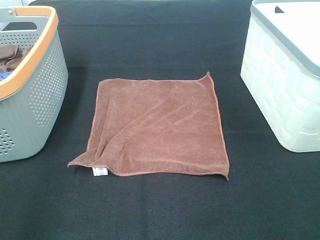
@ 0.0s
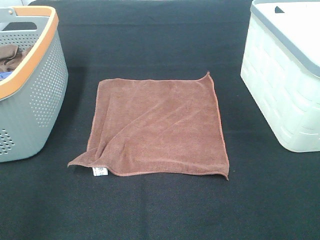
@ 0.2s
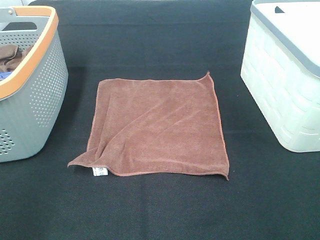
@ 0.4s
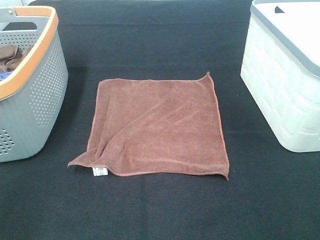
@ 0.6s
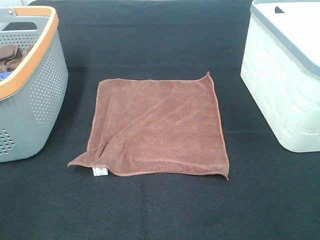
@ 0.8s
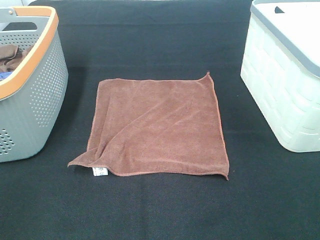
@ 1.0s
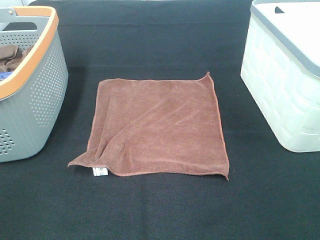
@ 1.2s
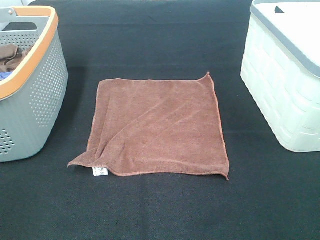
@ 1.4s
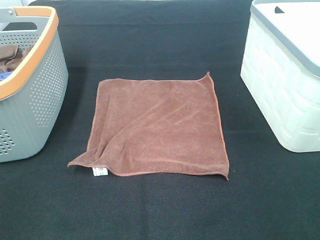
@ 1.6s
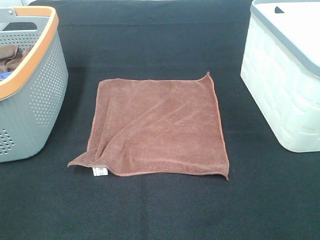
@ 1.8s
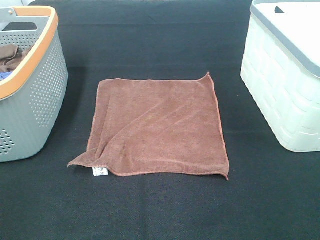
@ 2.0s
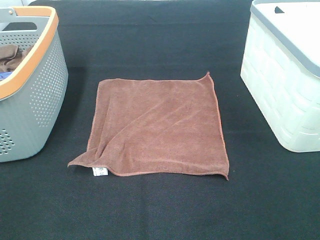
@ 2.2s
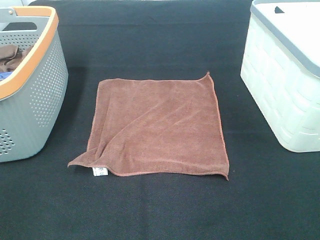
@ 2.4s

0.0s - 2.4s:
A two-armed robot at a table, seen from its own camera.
Task of the whole recording: Remove the towel and place it.
1.2s - 2.4s: Both grippers stay put.

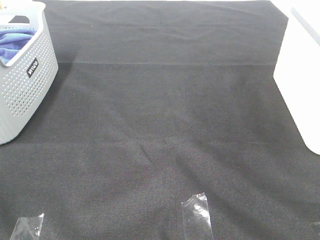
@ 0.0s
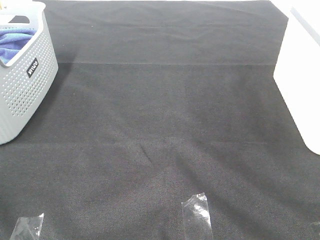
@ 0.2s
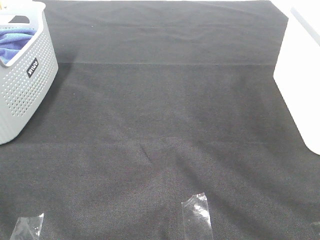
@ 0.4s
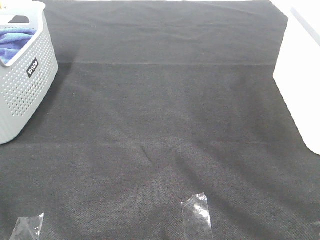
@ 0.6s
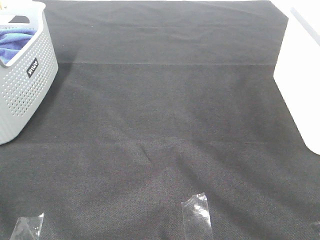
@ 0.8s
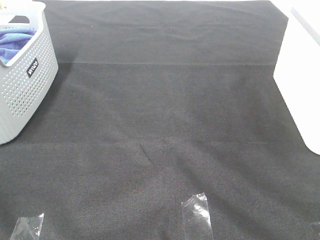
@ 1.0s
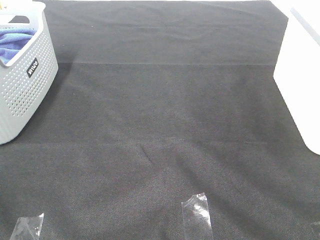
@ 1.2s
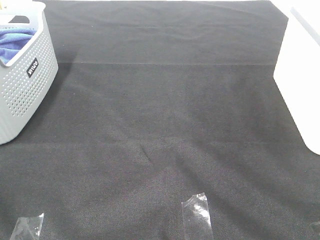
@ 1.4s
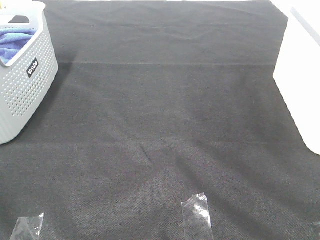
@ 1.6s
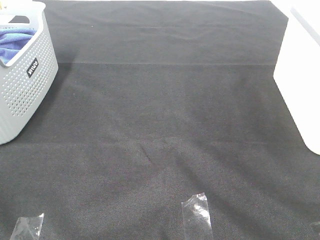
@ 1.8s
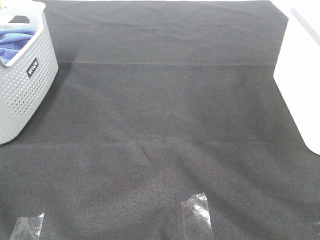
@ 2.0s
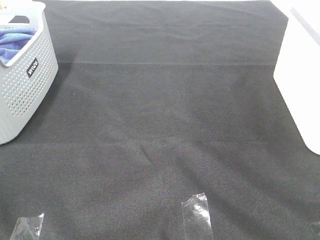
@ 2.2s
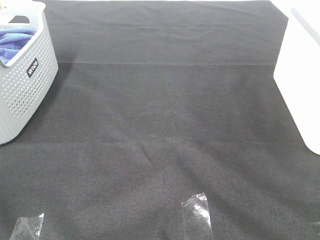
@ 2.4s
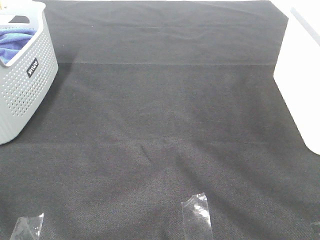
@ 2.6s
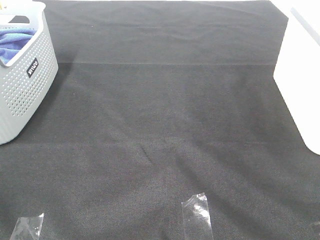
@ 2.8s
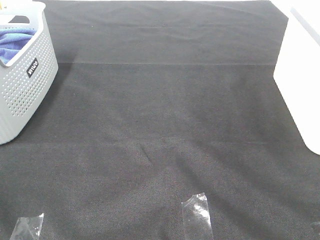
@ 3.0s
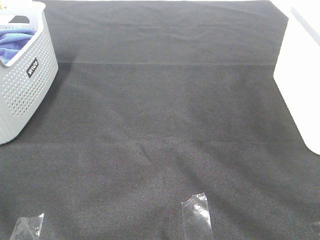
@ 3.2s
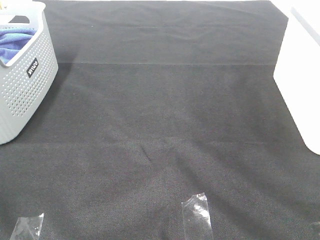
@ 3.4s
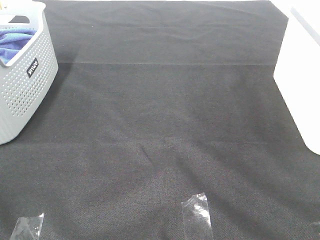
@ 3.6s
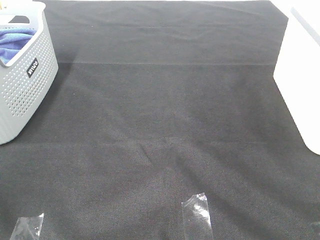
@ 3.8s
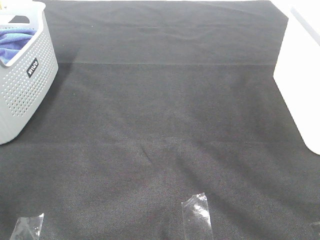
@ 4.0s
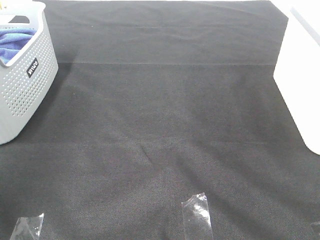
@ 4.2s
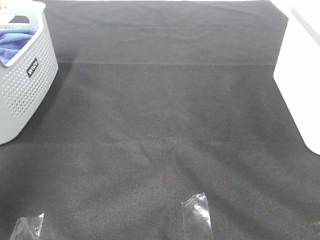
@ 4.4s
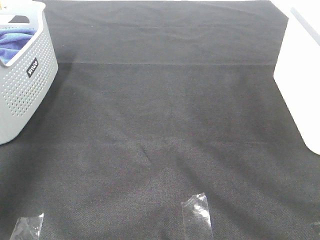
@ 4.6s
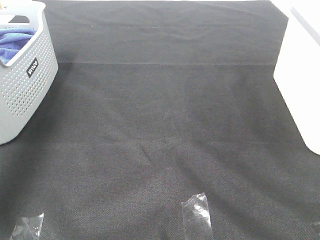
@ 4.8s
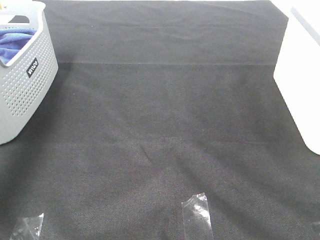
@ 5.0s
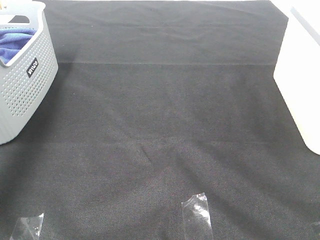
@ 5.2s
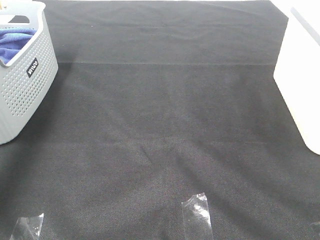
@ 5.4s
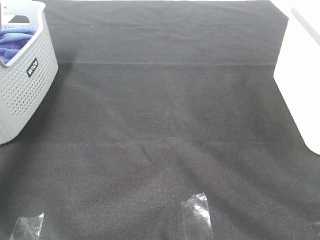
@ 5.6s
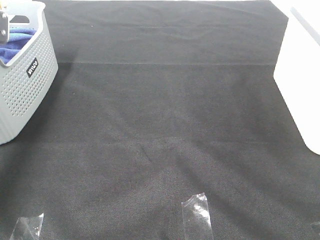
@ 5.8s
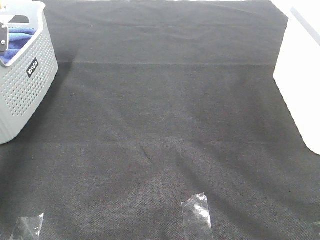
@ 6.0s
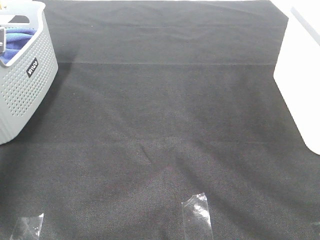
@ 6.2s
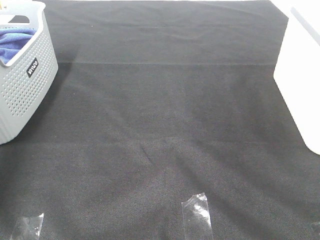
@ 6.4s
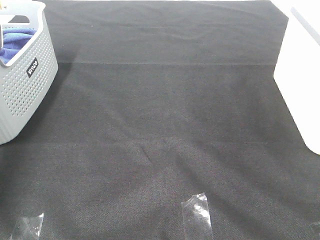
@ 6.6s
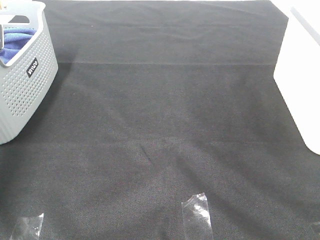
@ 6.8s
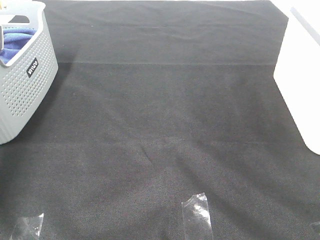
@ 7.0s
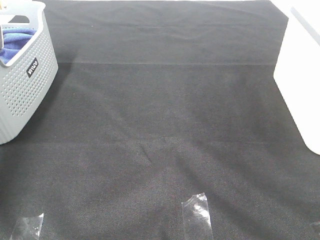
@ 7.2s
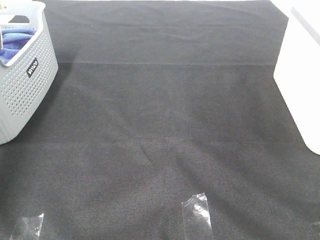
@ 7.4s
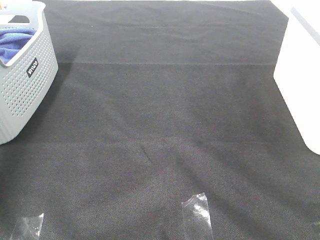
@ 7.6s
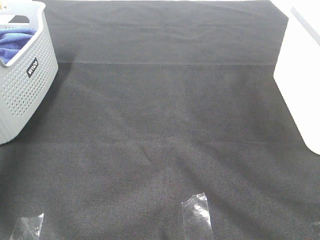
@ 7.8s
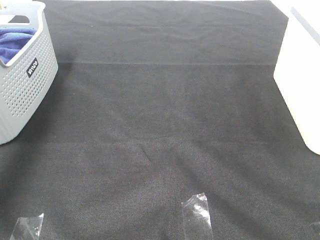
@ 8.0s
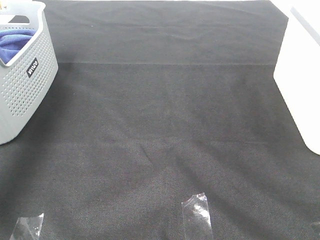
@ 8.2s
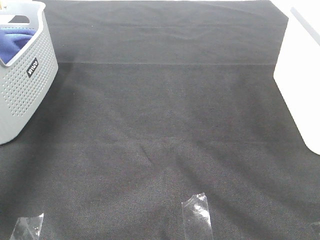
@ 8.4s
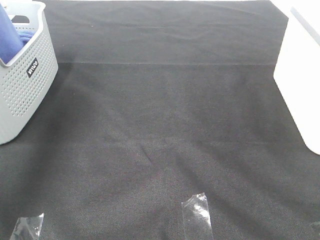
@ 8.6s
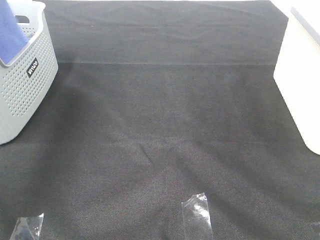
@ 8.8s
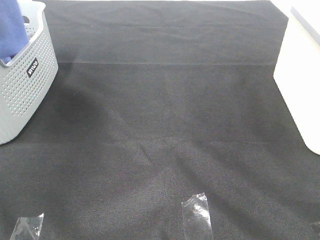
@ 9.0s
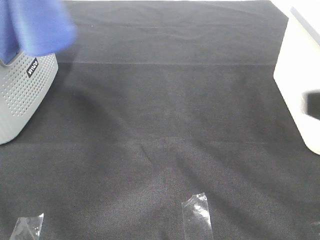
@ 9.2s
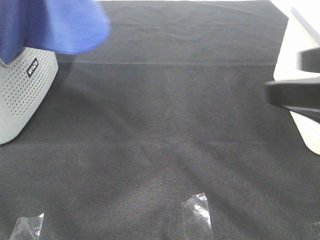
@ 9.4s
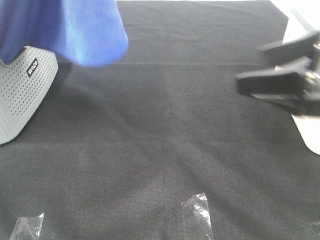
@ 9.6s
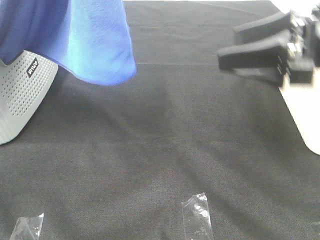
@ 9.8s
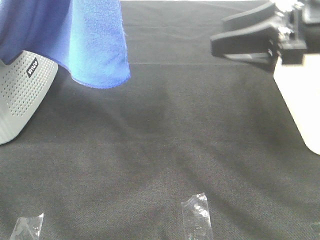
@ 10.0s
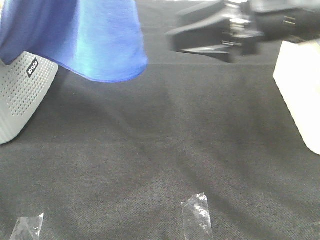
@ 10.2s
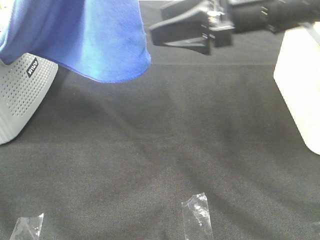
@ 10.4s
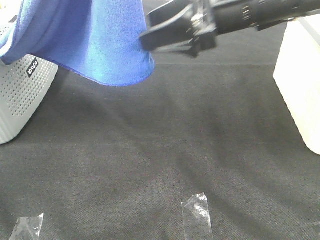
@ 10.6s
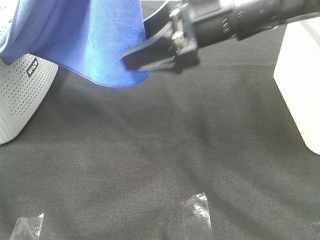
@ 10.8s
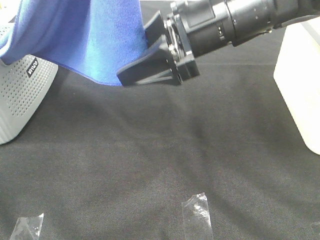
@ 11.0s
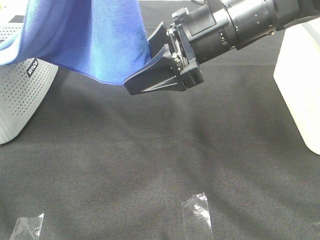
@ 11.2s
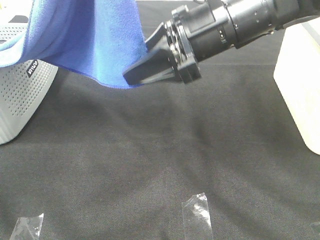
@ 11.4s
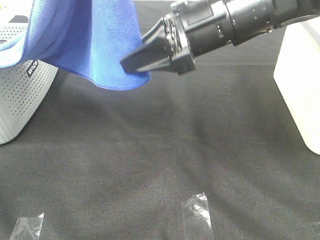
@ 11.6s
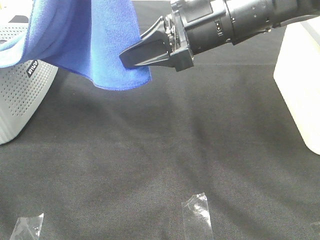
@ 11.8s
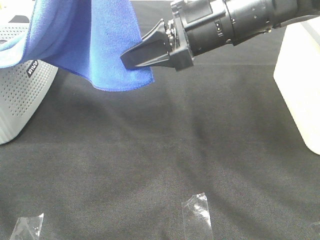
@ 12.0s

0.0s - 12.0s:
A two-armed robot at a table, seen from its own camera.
Task of the whole recording: Remove the towel and place it.
0.0s - 3.0s: Both grippers stay about where they are.
3.0s - 4.4s: The left gripper moves forward and upward, roughly 30 cm.
4.4s - 6.0s: The left gripper goes roughly 35 cm downward and forward.
7.6s - 9.0s: The left gripper is displaced upward, backward and to the right by some 40 cm.
9.0s - 10.4s: The right gripper shifts about 30 cm forward and to the left, while the left gripper heads to the right, covering some 10 cm.
10.4s - 12.0s: The right gripper ends up approximately 5 cm from where it was, and closes.

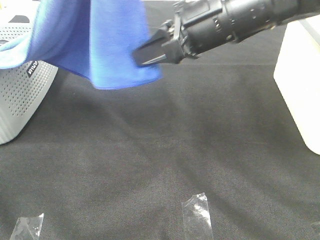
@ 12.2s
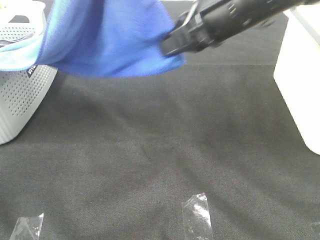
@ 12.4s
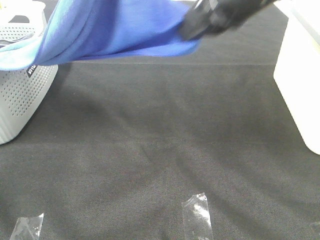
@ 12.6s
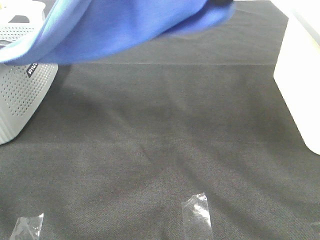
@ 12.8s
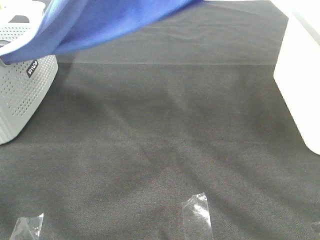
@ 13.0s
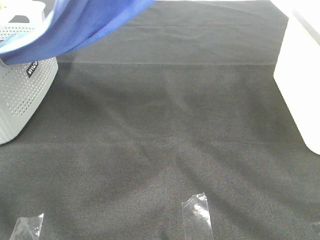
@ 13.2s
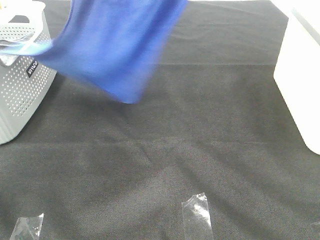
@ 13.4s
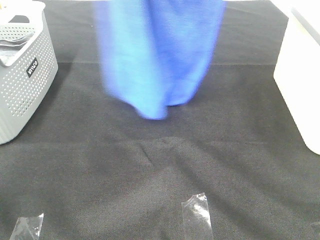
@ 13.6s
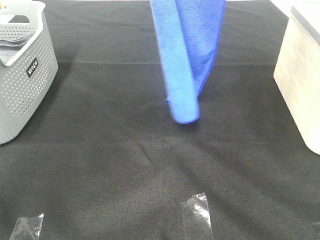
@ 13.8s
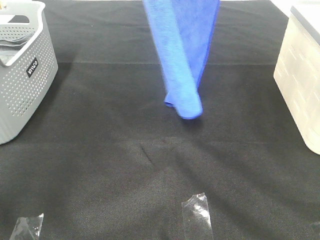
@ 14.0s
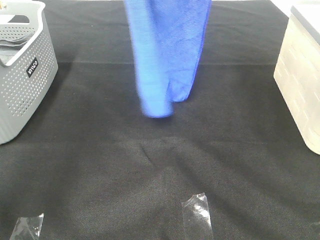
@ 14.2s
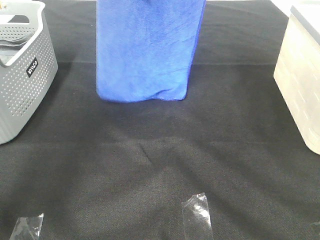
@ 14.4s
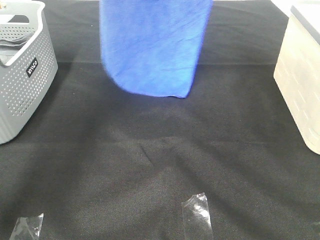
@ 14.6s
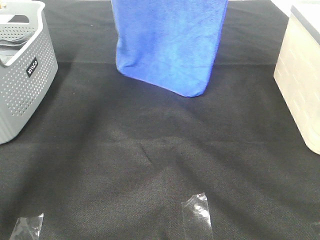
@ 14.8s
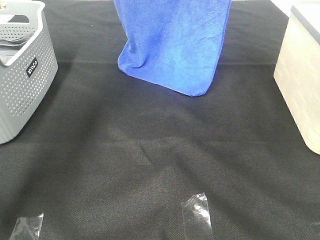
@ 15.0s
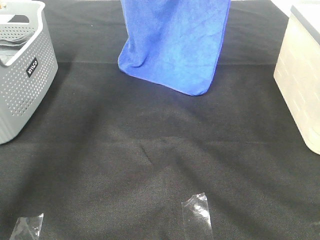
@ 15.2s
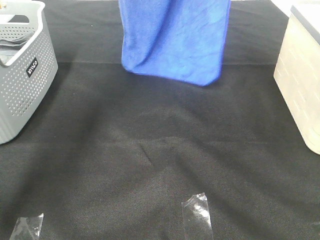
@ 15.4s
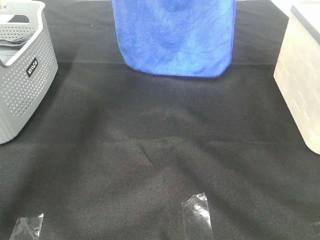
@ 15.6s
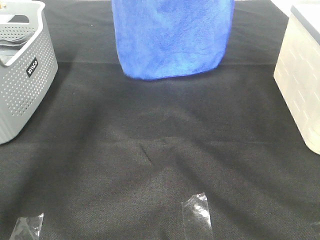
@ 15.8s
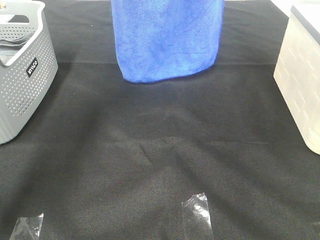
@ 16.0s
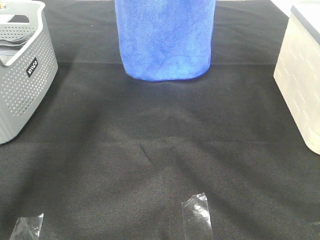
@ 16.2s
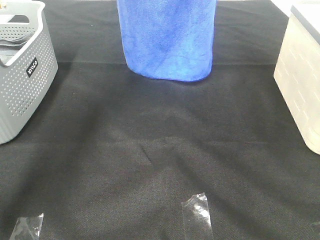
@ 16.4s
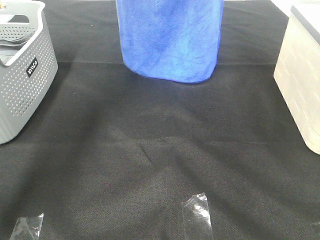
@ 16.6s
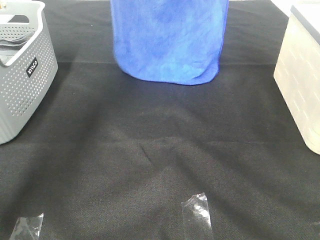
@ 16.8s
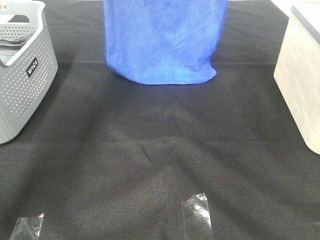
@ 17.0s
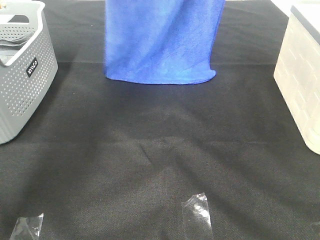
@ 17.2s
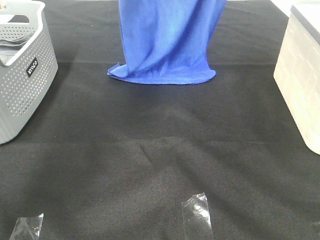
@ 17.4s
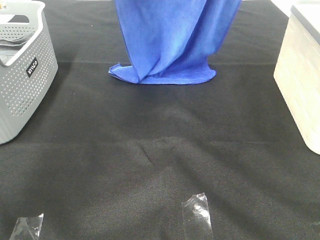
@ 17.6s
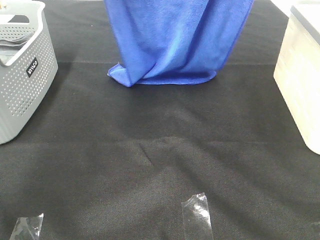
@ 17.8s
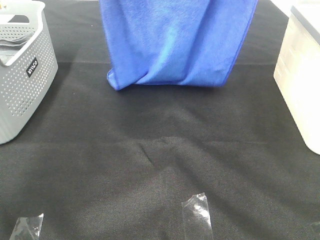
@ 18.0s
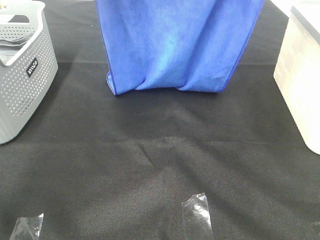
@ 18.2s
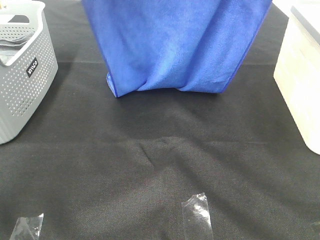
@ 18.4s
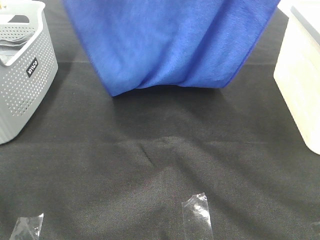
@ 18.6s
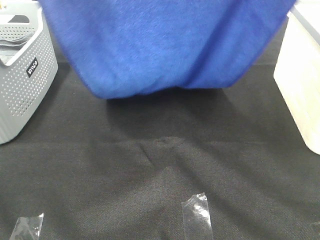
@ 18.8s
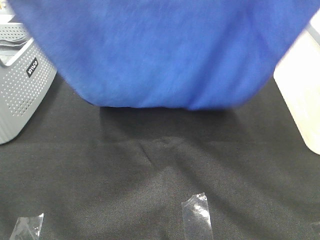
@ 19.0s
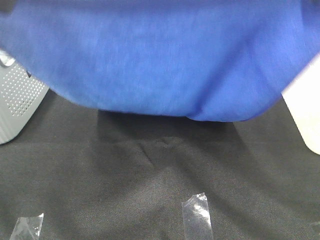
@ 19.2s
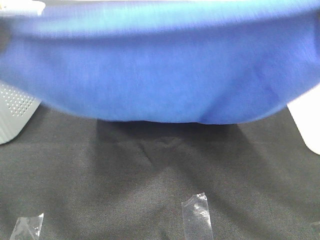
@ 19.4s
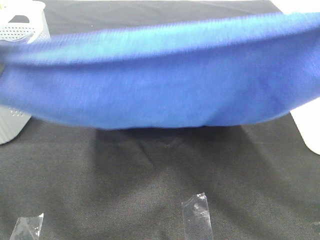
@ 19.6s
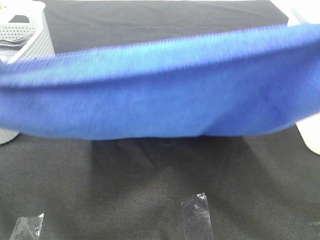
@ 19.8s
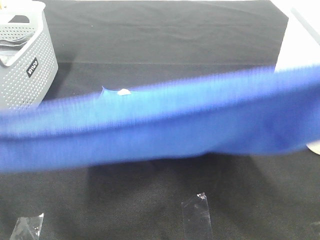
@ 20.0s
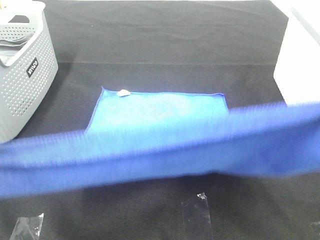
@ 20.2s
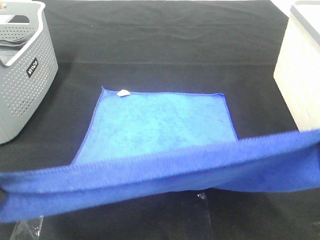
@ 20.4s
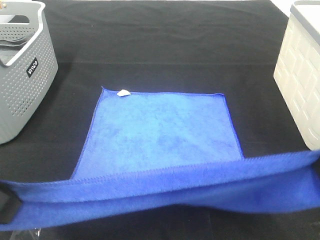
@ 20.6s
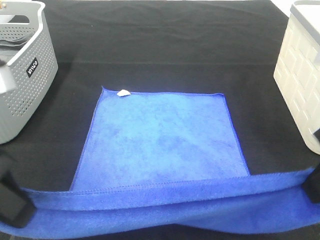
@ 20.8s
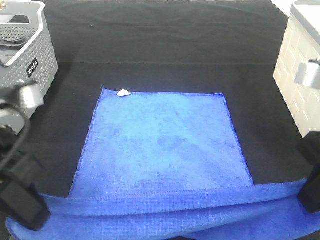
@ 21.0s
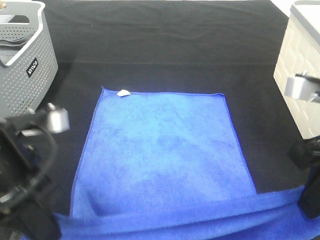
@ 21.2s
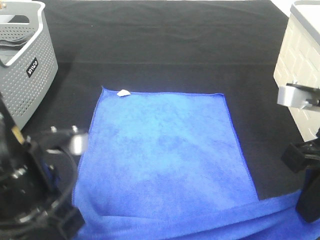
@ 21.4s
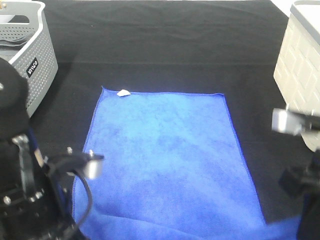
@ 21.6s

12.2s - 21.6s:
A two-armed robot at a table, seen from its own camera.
Task of the whole recording: Remove the towel and place it.
Step, 12.8s - 18.6s: Left hand: spread the blue towel flat on the table.
Step, 12.8s - 18.6s: Right hand: spread the blue towel flat on the table.
12.2s - 13.8s: The left gripper moves forward, about 10 cm. Meanwhile the right gripper heads upward, covering roughly 25 cm.
13.8s - 15.4s: The right gripper moves forward, about 10 cm. Meanwhile the left gripper shifts approximately 15 cm forward and downward.
17.0s - 18.4s: Both grippers travel together backward, approximately 15 cm.
18.4s - 20.0s: The grippers both shift backward by some 25 cm.
20.0s - 21.6s: The right gripper moves downward, about 20 cm, while the left gripper travels downward and to the right by roughly 20 cm.
